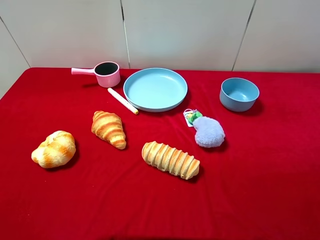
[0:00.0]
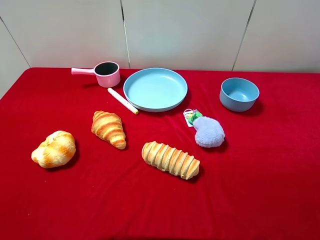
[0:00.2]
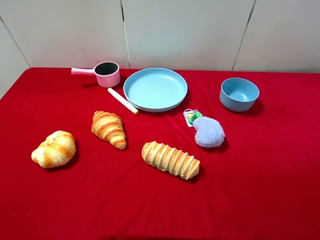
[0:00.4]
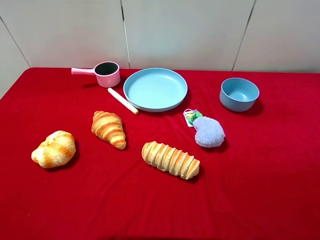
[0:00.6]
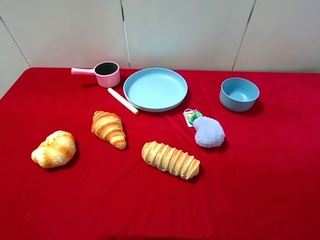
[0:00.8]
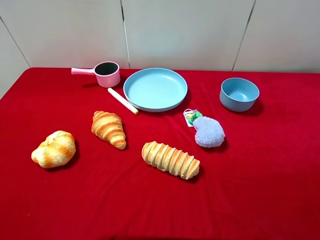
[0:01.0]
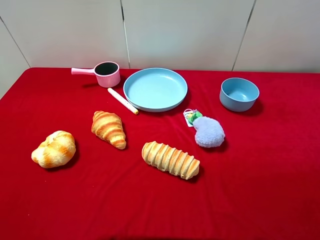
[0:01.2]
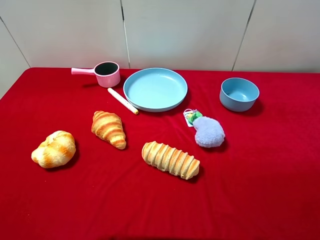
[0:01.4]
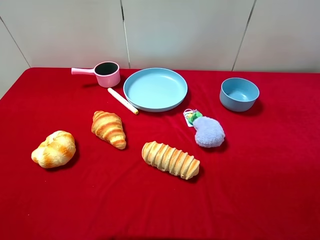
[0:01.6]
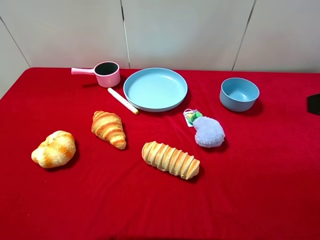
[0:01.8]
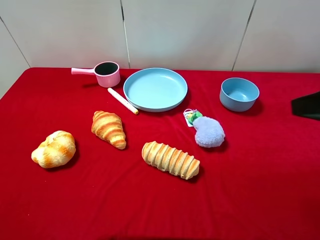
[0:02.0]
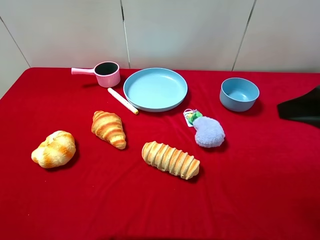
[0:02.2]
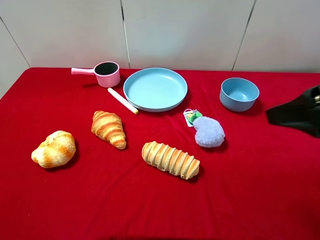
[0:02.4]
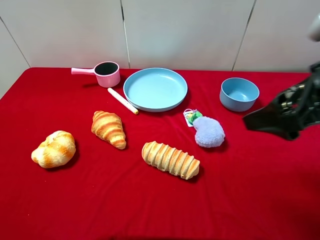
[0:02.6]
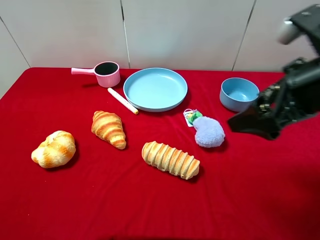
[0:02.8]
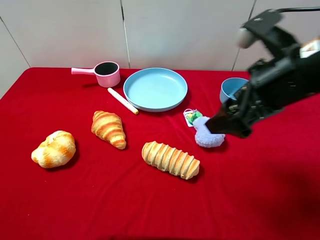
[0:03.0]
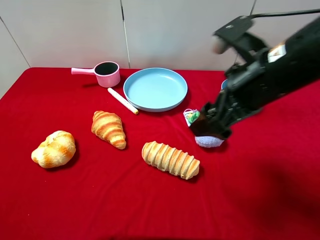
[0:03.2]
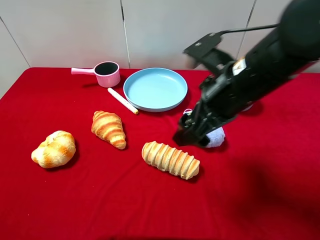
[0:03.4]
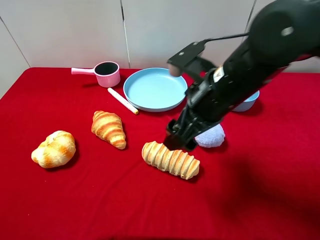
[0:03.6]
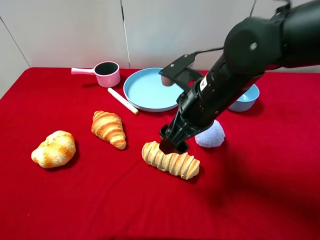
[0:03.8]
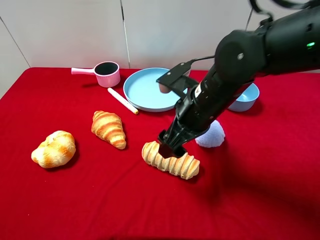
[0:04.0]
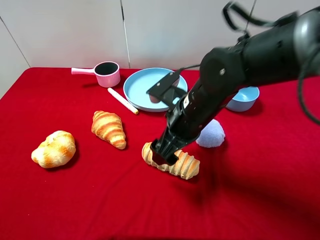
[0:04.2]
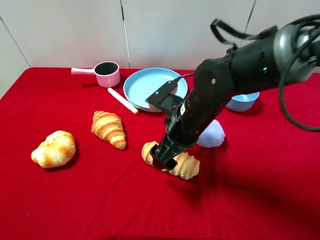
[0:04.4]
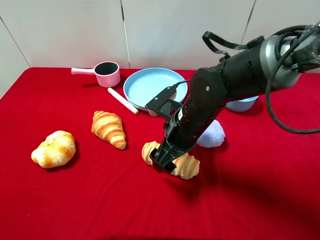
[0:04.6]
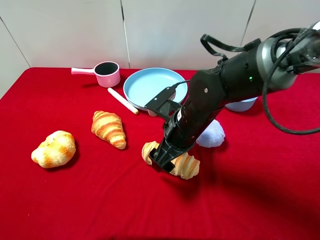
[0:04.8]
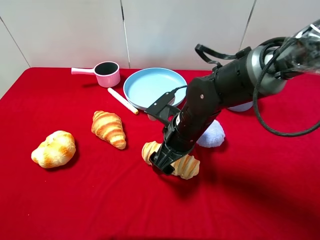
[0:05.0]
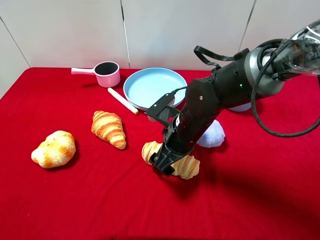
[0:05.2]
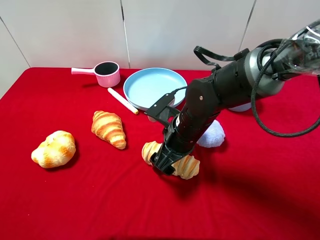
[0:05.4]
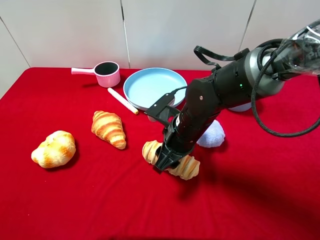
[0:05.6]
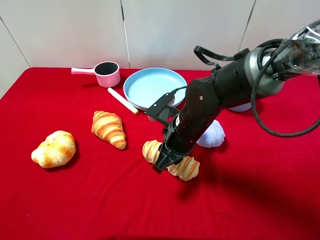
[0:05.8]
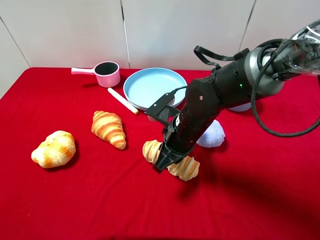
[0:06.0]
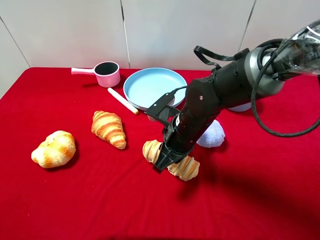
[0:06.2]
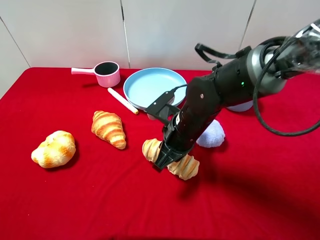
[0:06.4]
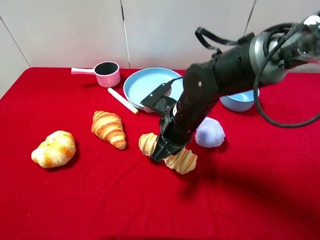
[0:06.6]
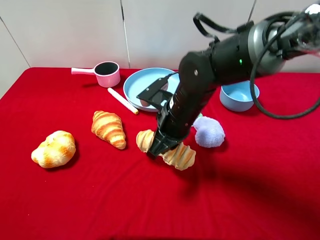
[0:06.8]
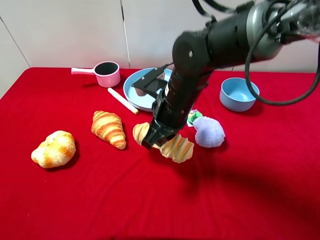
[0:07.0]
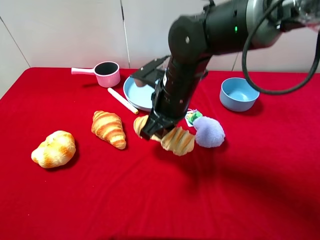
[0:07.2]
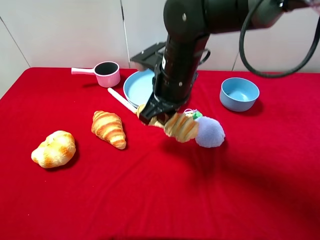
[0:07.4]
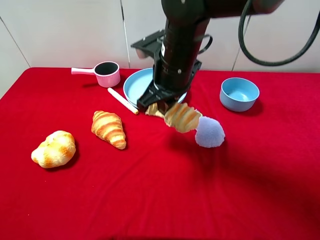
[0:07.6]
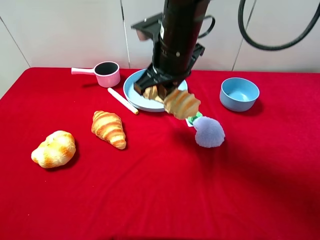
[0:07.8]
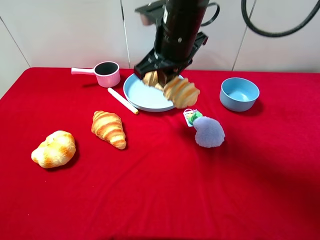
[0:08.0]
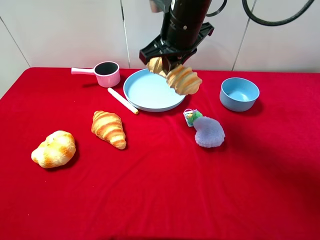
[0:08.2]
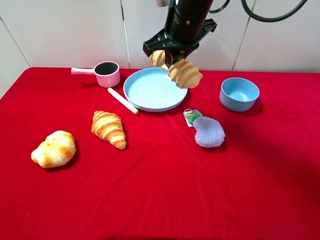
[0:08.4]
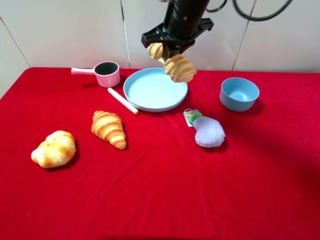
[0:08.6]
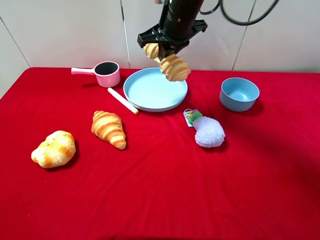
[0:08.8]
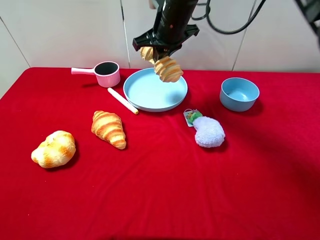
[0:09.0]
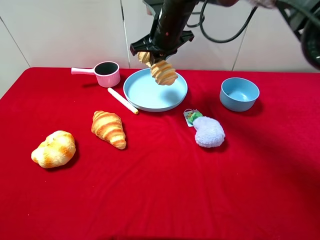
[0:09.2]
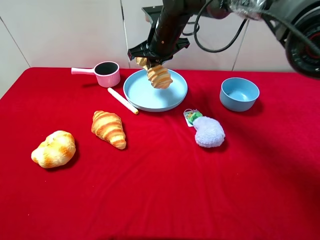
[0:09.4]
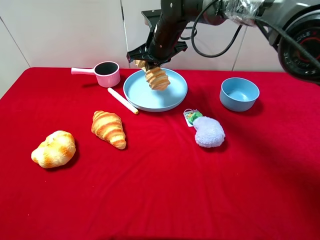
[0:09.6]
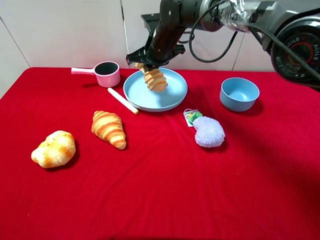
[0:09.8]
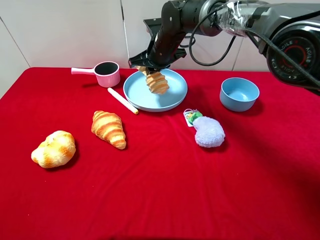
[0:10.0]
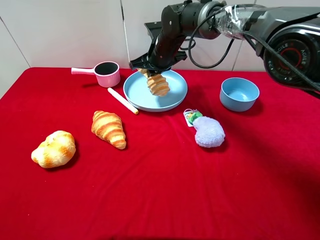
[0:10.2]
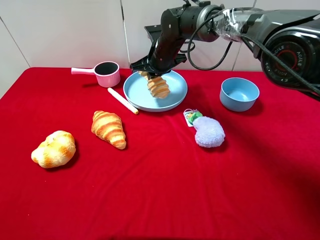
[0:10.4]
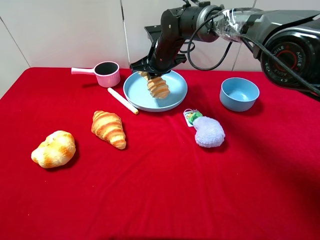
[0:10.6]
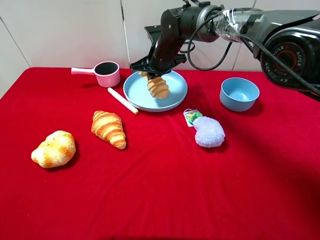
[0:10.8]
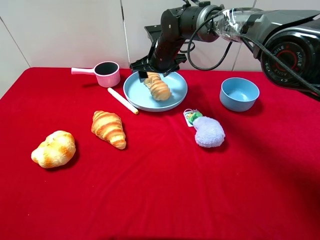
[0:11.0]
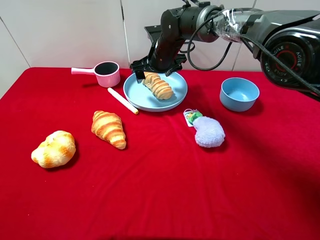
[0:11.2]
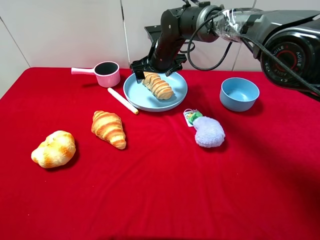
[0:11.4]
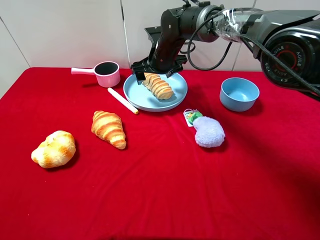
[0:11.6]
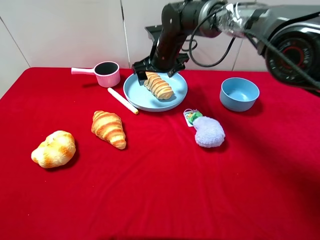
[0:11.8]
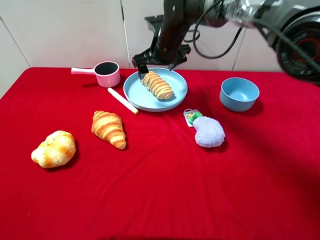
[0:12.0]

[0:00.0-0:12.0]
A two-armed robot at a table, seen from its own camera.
Task of the whole recording: pick up an item with a gripper and place it in a random container on the desktop.
0:01.6 to 0:03.0: The right gripper travels to the left, forward and downward by about 20 cm.
0:03.0 to 0:04.4: The right gripper is displaced downward and to the left by roughly 15 cm.
0:04.4 to 0:06.0: The right gripper closes up.
0:06.0 to 0:07.6: The right gripper goes about 10 cm upward.
0:07.6 to 0:09.0: The right gripper heads forward, covering about 15 cm.
0:09.0 to 0:10.4: The right gripper goes roughly 10 cm downward.
0:10.4 to 0:12.0: The right gripper opens up.

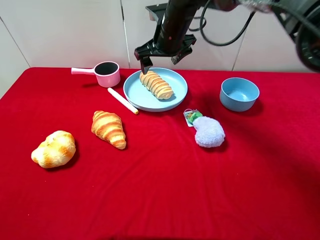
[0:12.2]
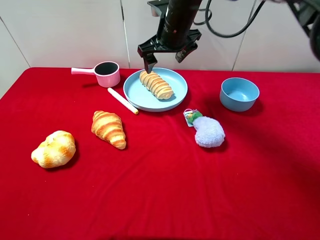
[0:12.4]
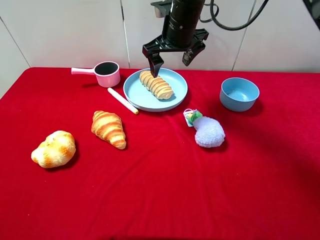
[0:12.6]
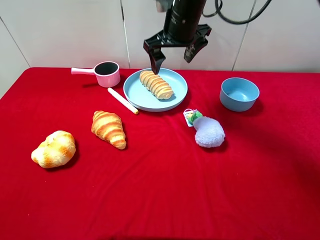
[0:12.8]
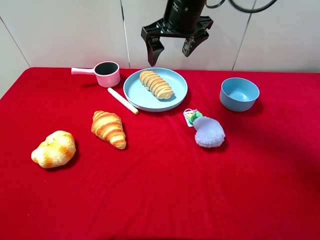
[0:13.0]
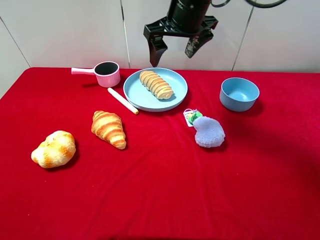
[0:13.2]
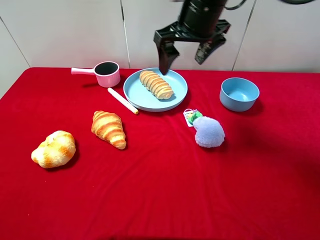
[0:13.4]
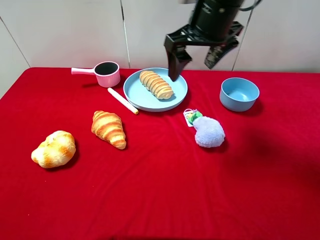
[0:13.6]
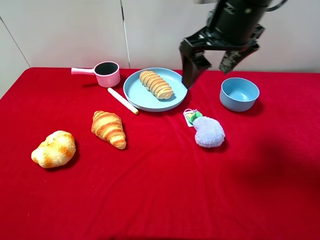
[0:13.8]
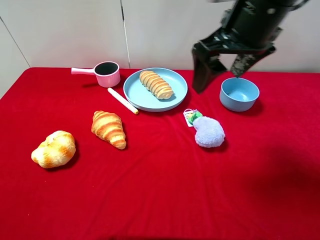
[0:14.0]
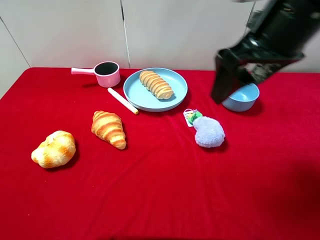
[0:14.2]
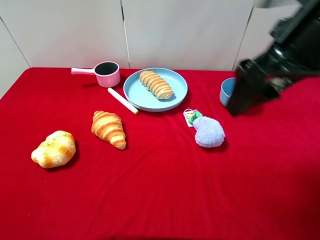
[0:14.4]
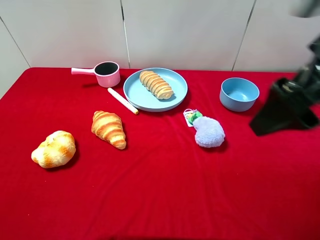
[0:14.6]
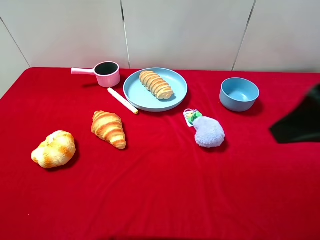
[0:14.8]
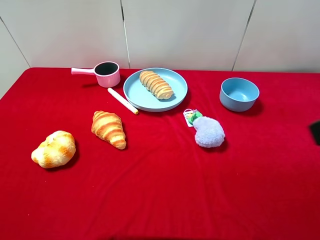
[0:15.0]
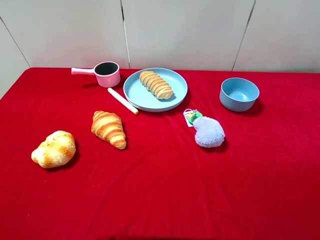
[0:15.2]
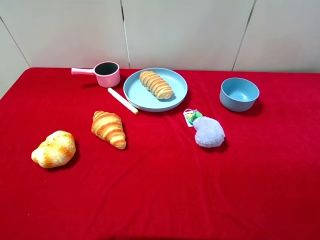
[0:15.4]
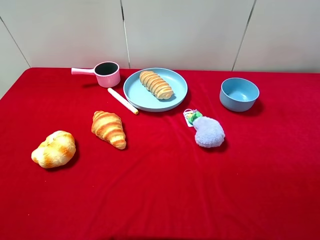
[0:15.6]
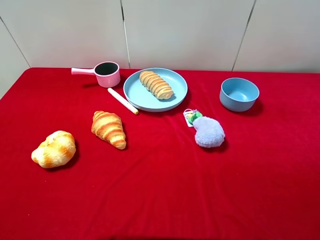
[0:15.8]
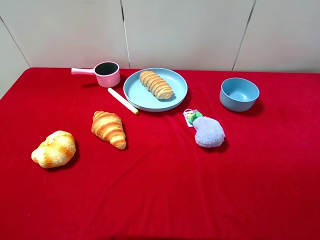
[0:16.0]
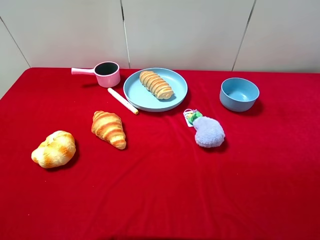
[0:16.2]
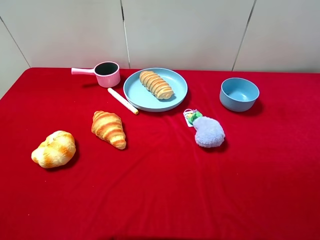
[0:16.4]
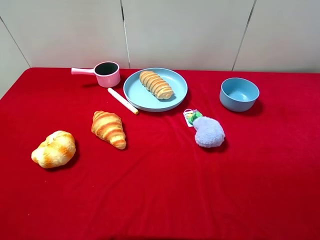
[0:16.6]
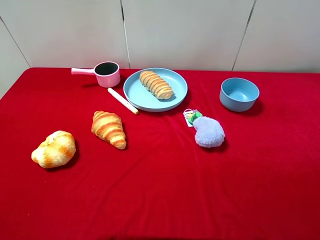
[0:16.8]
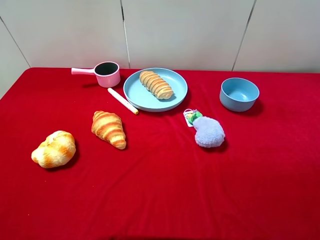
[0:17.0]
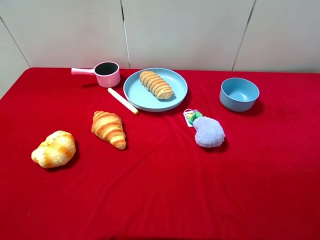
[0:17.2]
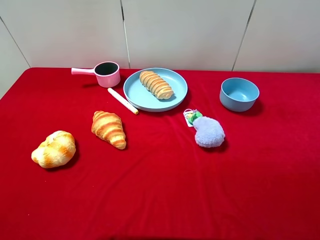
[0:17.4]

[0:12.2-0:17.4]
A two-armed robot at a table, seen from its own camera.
Task of the whole recording: pick up an item with a gripper and place it in a random container on the desktop.
0:12.2 to 0:14.0: The right gripper travels backward, to the right and upward by roughly 20 cm.
0:14.0 to 0:15.6: The right gripper moves backward and to the right, about 30 cm.
